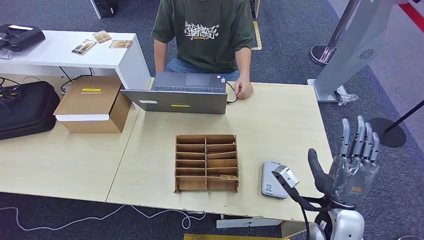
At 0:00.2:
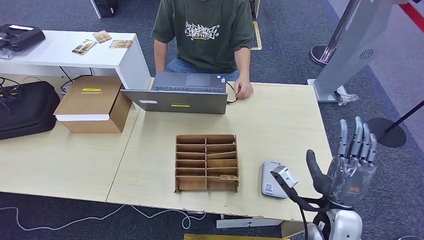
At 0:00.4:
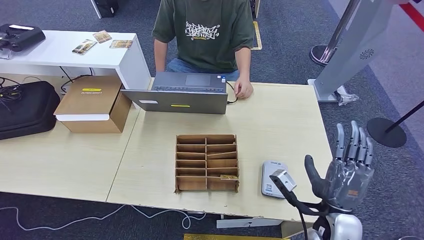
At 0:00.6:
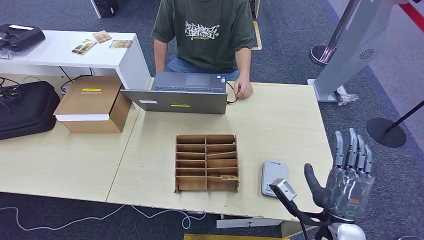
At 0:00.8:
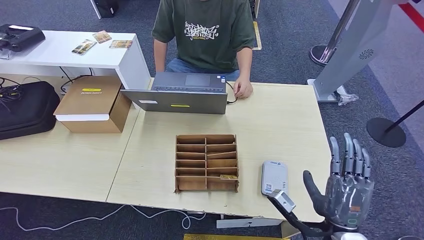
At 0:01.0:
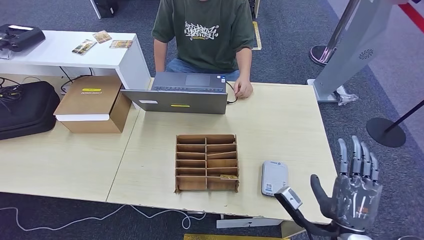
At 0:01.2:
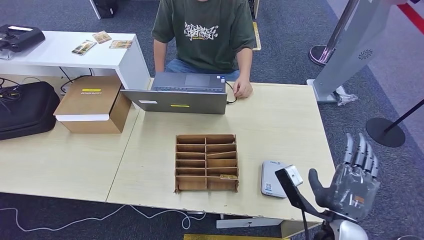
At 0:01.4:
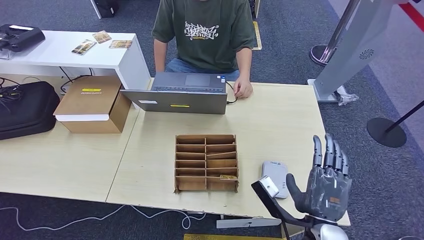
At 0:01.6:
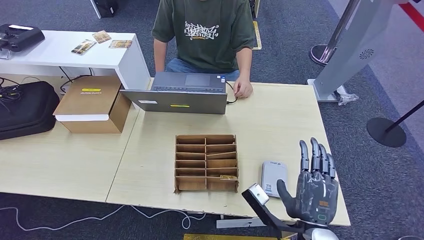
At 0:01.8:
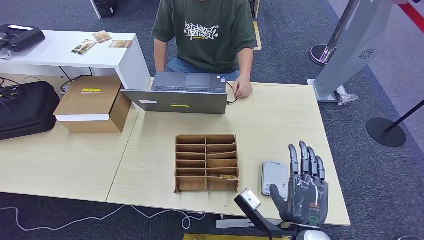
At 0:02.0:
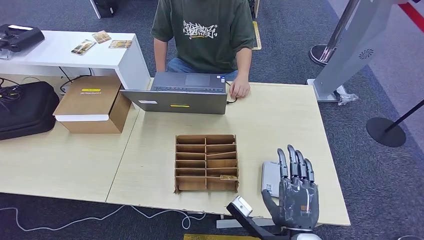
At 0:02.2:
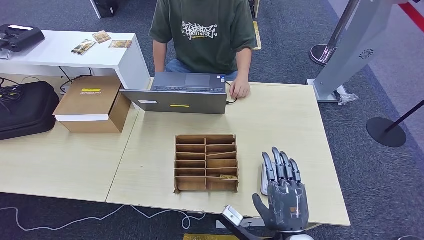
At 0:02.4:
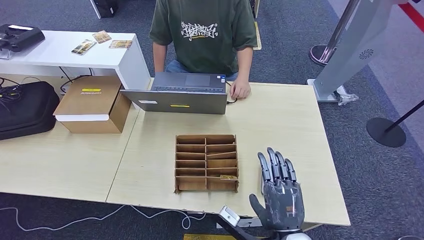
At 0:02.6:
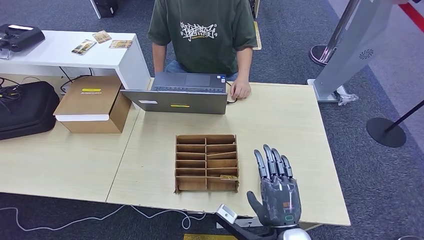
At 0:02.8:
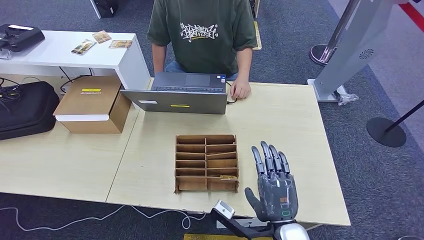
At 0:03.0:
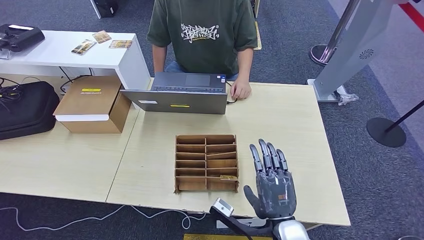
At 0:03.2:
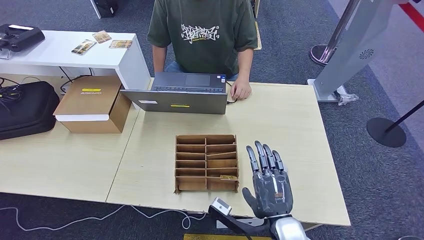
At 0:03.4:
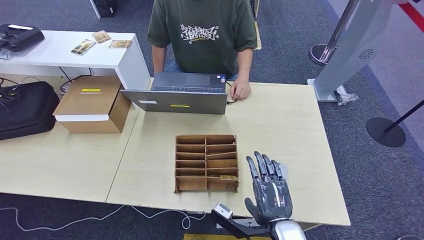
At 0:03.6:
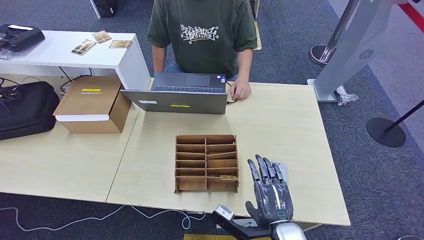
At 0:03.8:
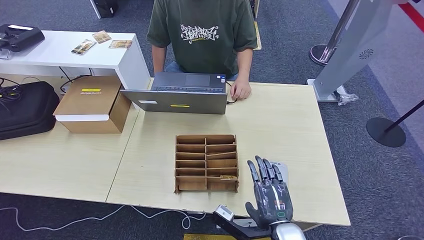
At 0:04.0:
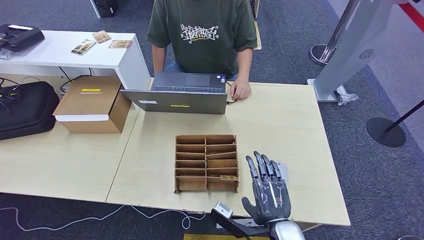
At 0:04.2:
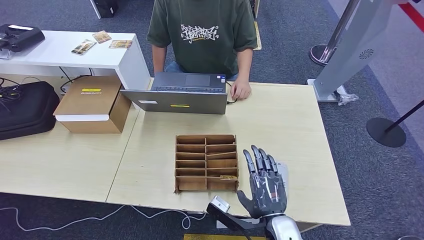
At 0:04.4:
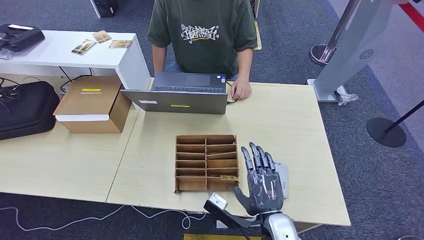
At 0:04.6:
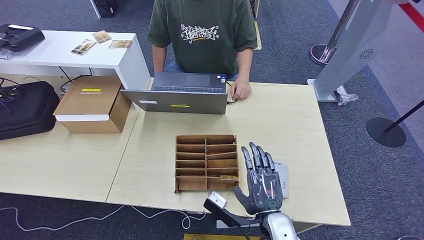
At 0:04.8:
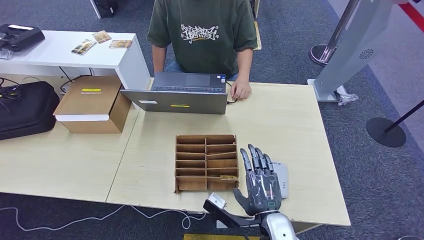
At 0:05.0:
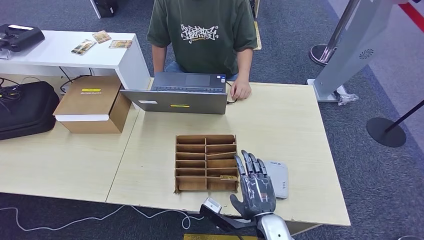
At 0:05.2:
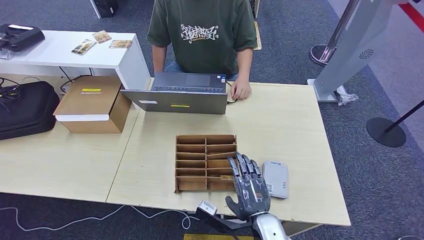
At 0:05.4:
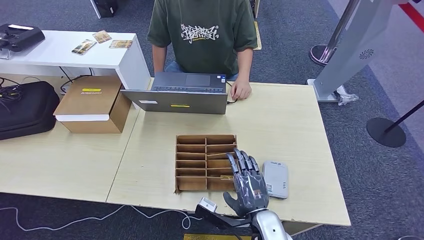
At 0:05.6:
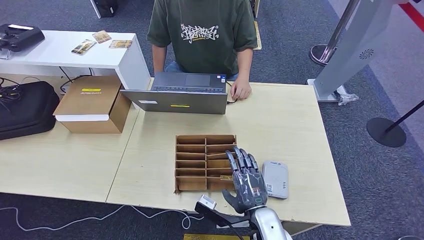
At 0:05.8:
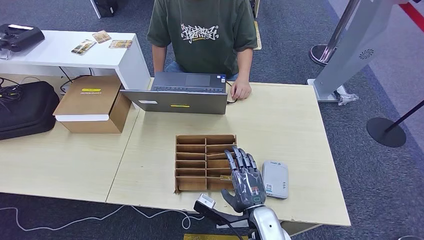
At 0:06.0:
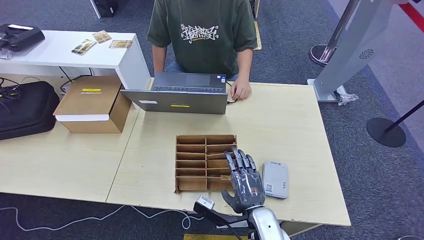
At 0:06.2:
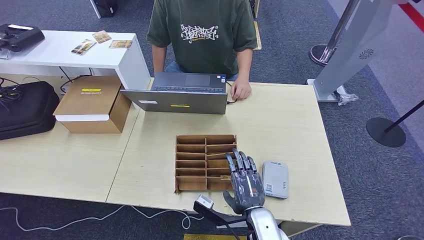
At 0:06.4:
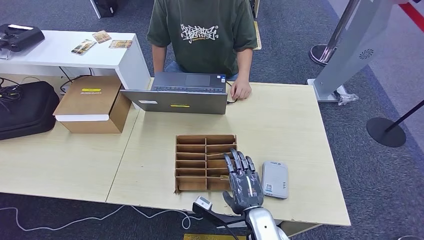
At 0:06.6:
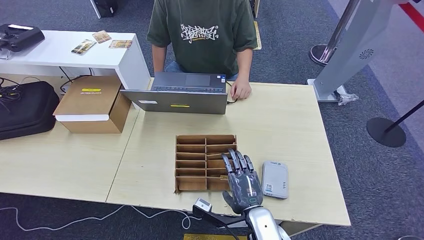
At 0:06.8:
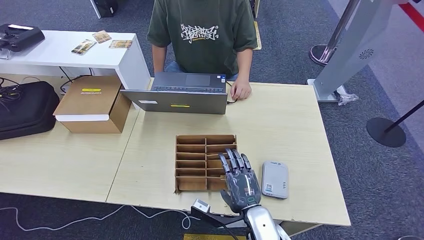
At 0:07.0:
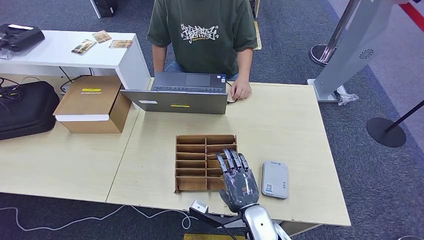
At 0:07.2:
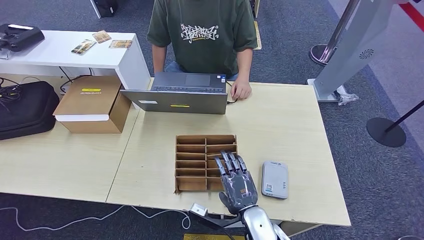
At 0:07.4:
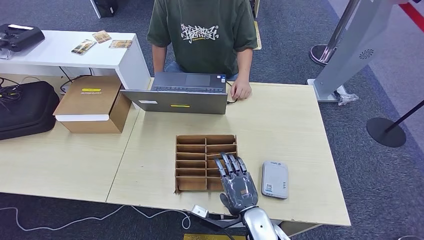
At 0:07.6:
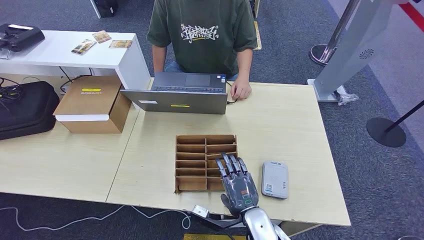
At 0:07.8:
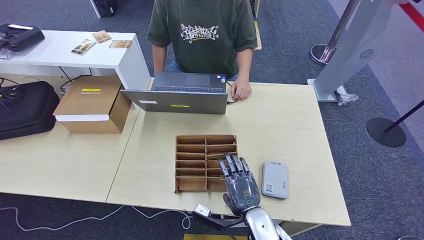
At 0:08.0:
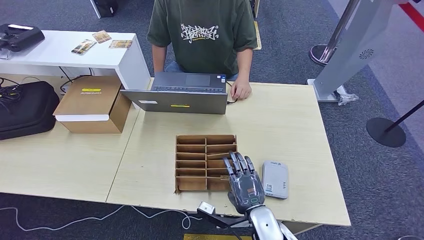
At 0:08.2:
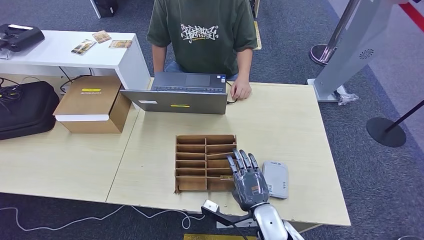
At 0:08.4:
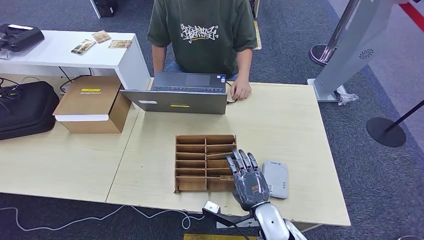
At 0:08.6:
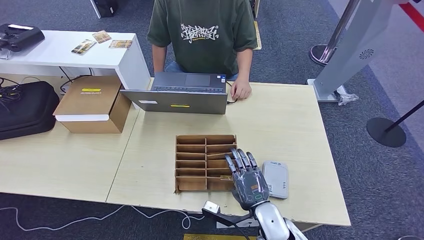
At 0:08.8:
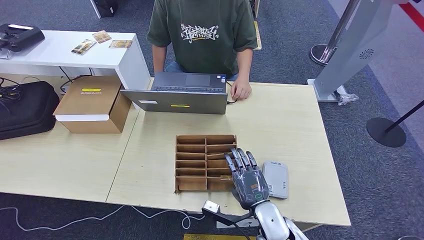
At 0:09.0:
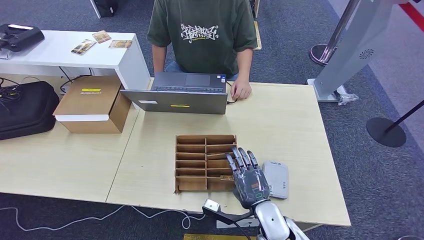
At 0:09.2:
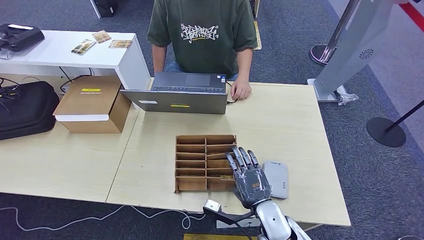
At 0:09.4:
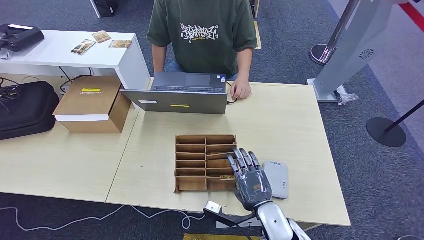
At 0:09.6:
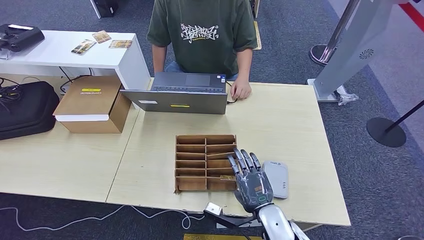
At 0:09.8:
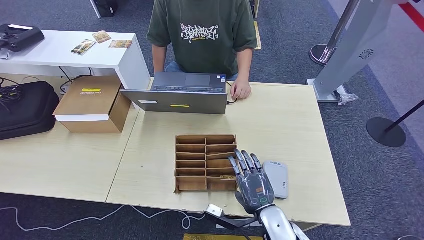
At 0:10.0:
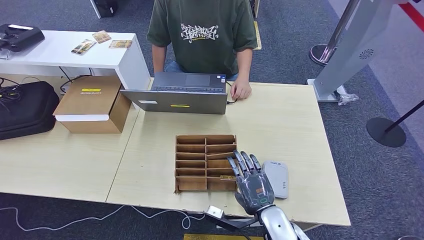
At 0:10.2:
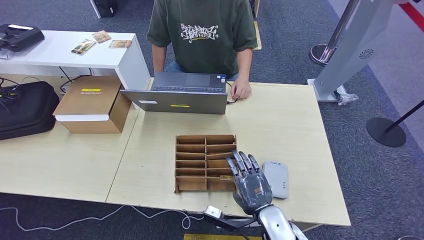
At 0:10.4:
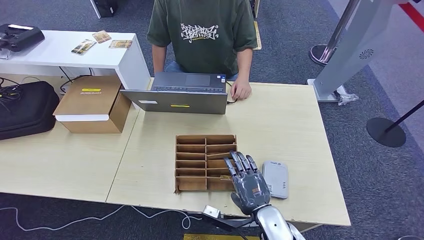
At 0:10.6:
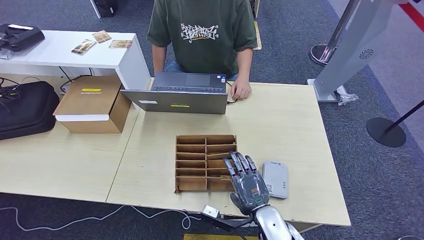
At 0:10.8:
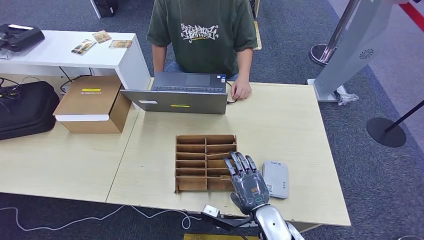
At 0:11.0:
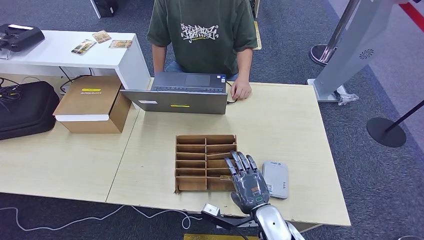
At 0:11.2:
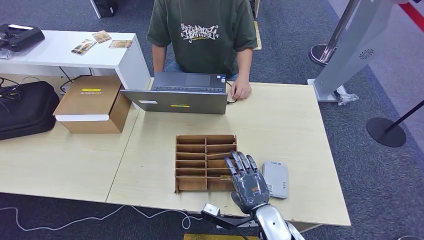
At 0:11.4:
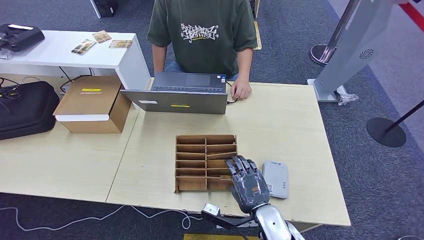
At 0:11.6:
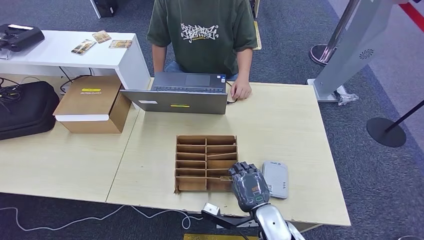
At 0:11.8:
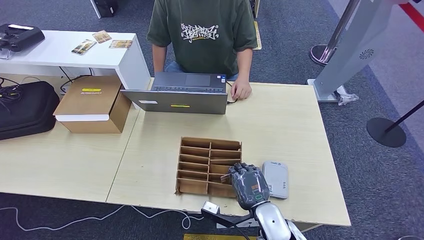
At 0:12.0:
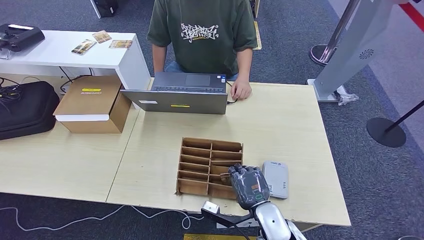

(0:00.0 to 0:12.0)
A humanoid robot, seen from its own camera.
0:00.0 - 0:01.6: The right hand shifts roughly 10 cm to the left and backward.
0:01.6 - 0:03.0: The hands make only small movements.
0:03.0 - 0:04.4: The hands make only small movements.
0:04.4 - 0:06.0: The hands stay close to where they were, moving slightly.
0:06.0 - 0:10.4: The hands stay close to where they were, moving slightly.
0:10.4 - 0:12.0: Both hands stay about where they are.

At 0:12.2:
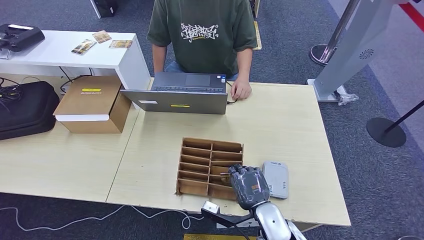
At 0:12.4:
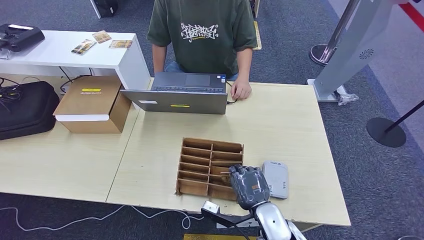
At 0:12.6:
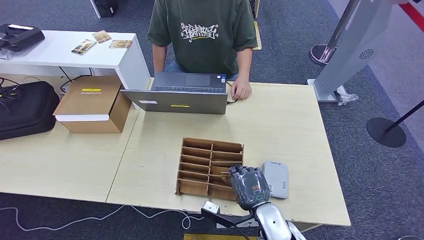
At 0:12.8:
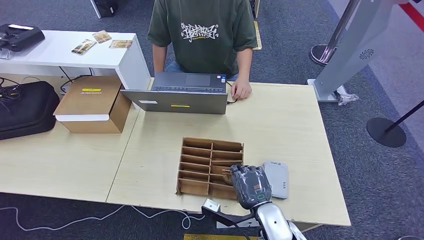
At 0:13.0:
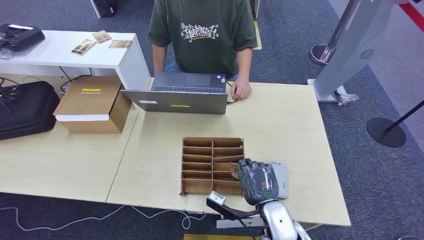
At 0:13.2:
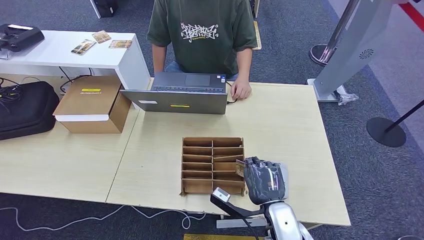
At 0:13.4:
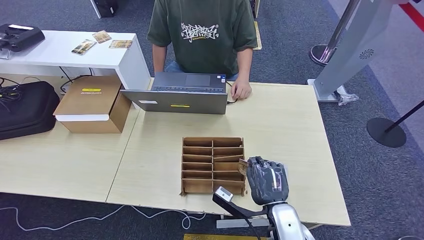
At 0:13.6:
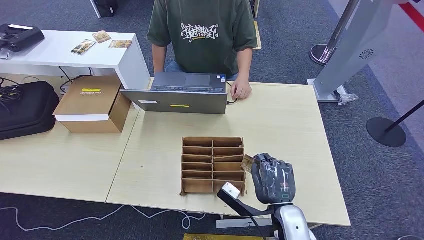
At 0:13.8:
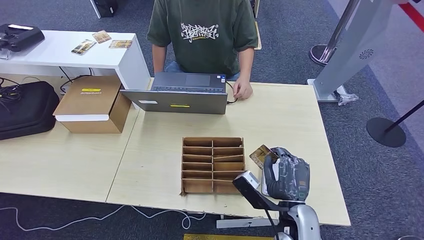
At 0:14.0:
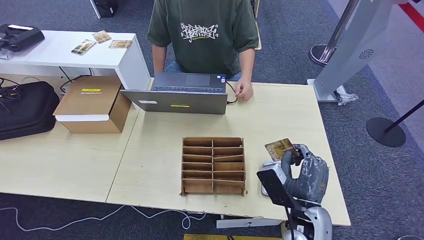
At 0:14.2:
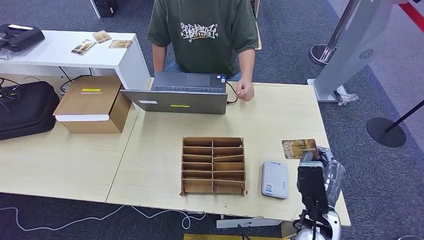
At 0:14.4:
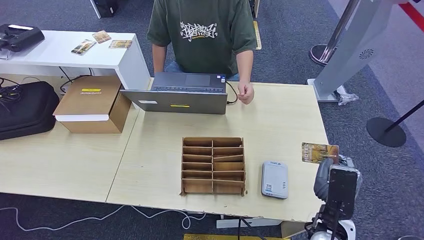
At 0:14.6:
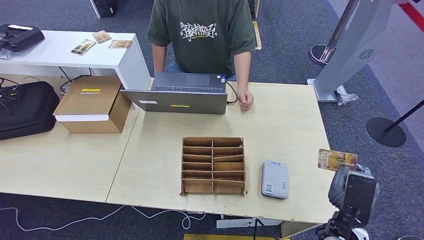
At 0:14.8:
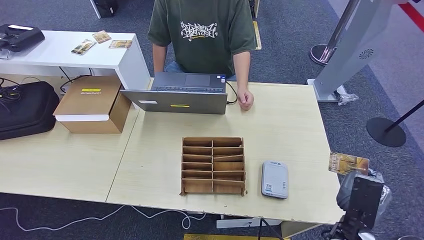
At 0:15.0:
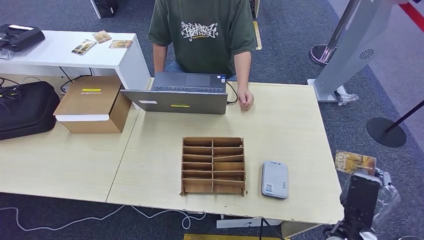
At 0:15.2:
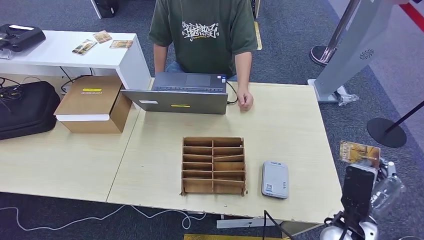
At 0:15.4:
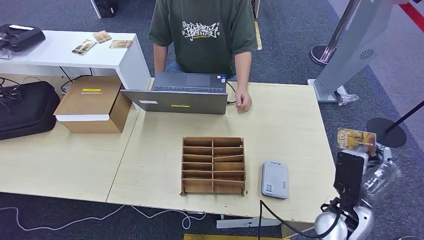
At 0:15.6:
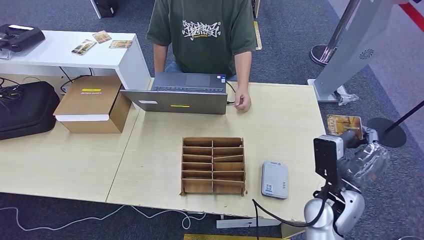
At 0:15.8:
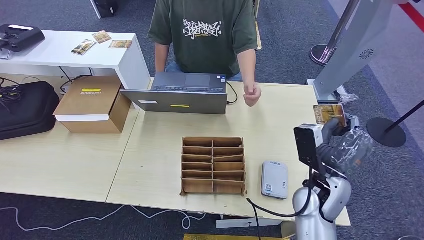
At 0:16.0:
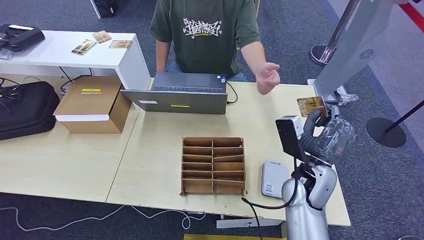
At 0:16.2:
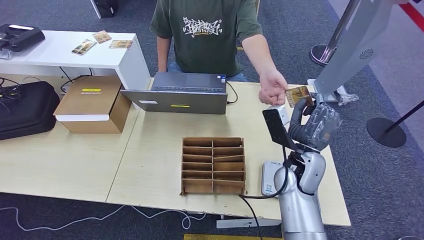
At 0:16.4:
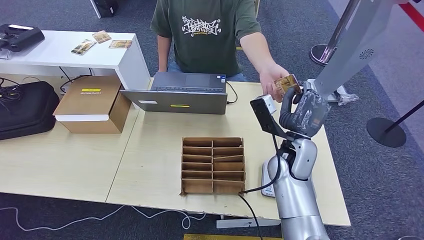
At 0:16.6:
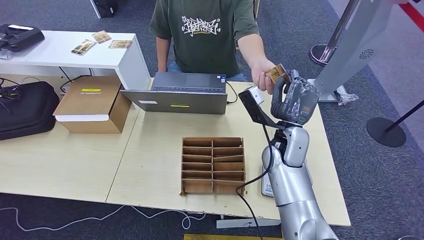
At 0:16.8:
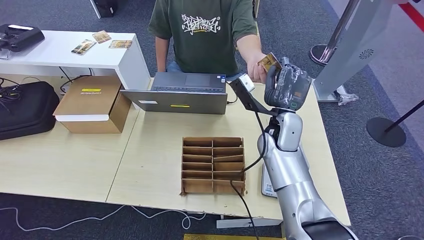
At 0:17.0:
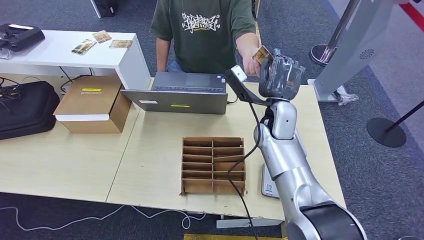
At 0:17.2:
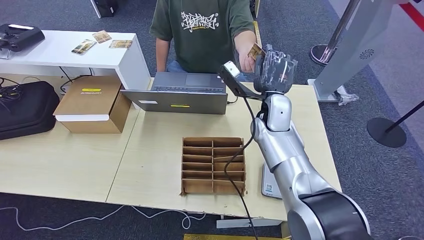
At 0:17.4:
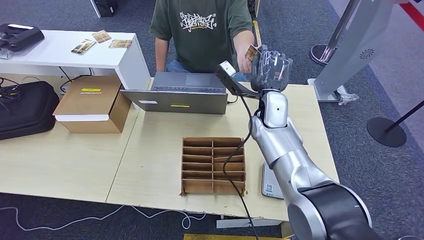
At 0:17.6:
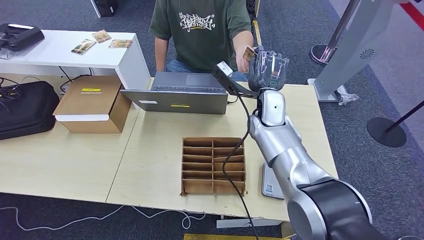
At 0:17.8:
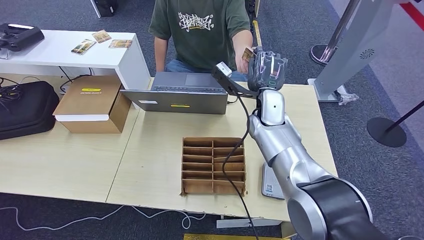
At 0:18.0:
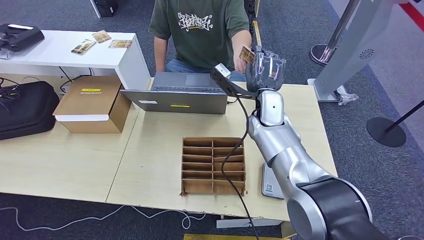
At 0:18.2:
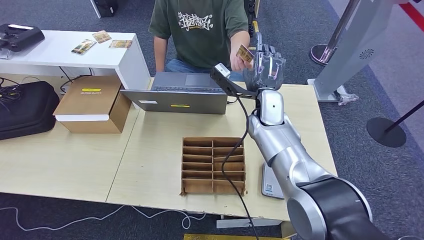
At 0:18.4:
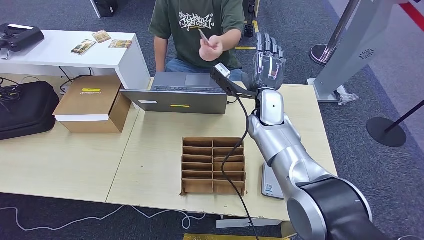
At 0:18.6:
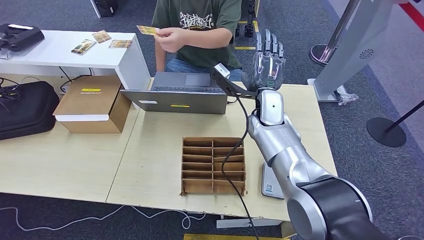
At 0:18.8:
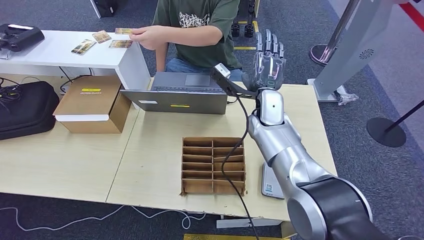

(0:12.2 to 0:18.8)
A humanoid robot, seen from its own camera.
Step, 0:13.8 - 0:18.8: Hand the room key to the person.
0:12.2 - 0:13.8: The right hand travels upward by about 5 cm.
0:13.8 - 0:15.4: The right hand travels to the right by approximately 10 cm.
0:15.4 - 0:17.2: The right hand shifts about 25 cm forward and to the left.
0:17.2 - 0:18.8: The hands make only small movements.
